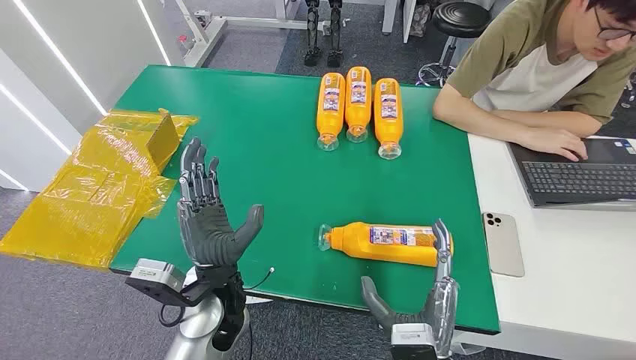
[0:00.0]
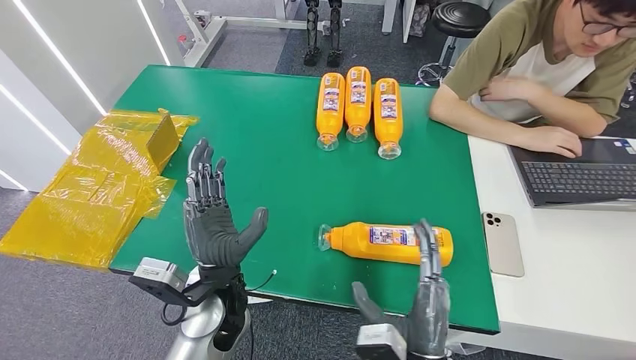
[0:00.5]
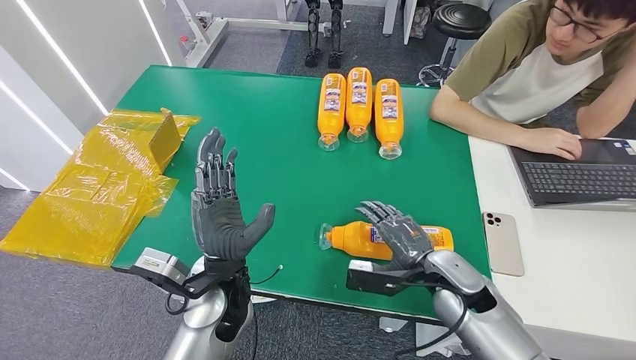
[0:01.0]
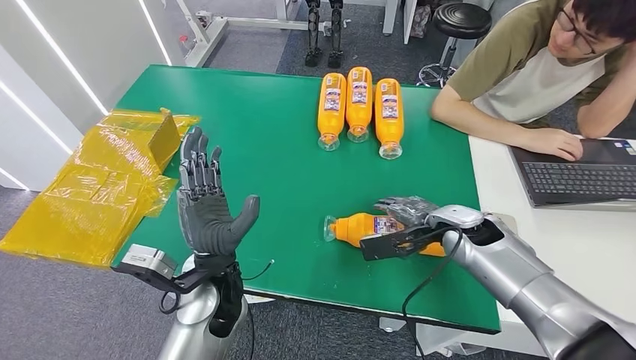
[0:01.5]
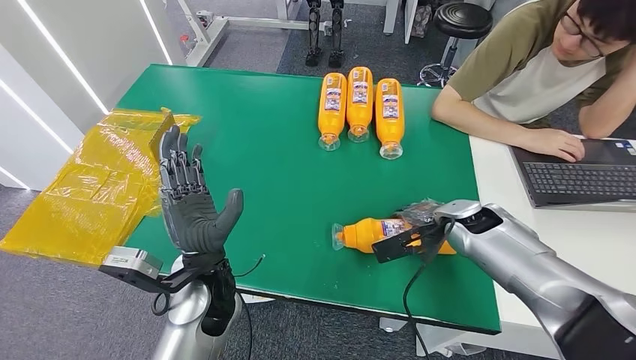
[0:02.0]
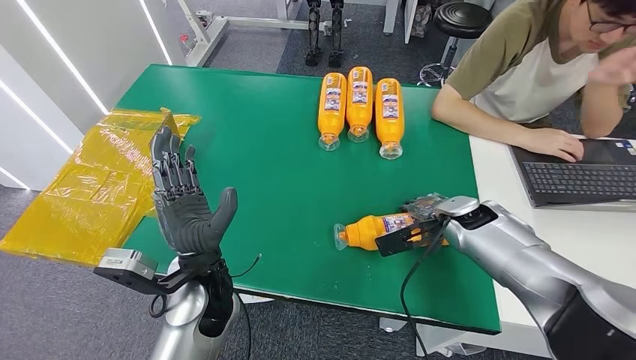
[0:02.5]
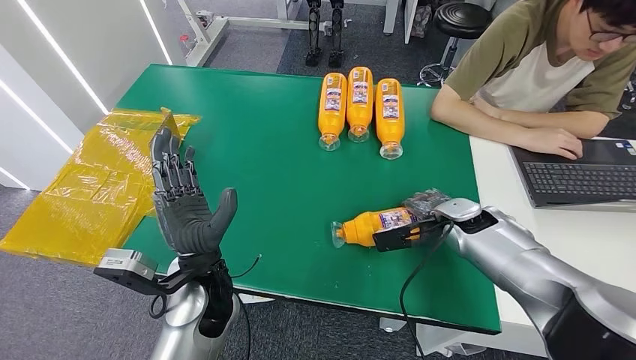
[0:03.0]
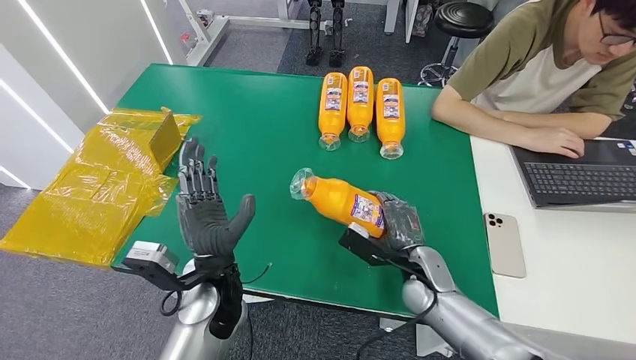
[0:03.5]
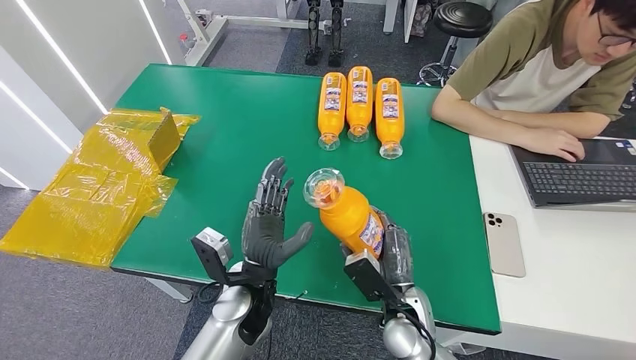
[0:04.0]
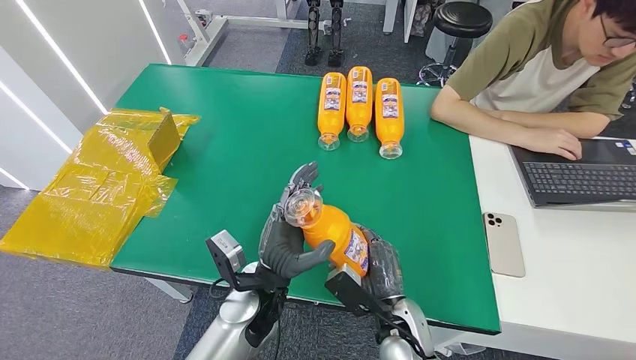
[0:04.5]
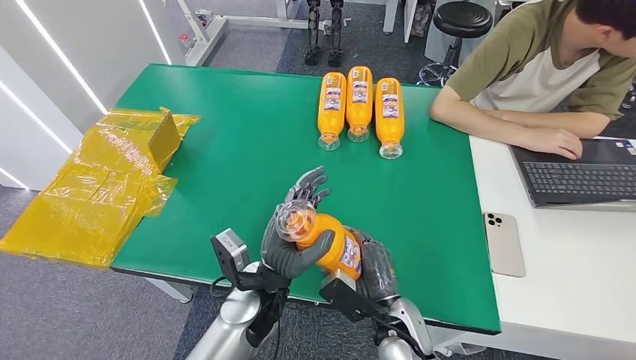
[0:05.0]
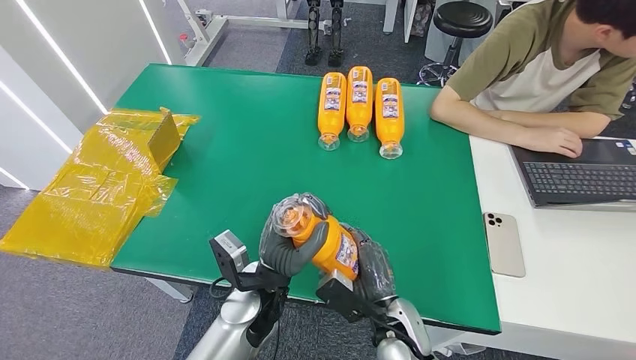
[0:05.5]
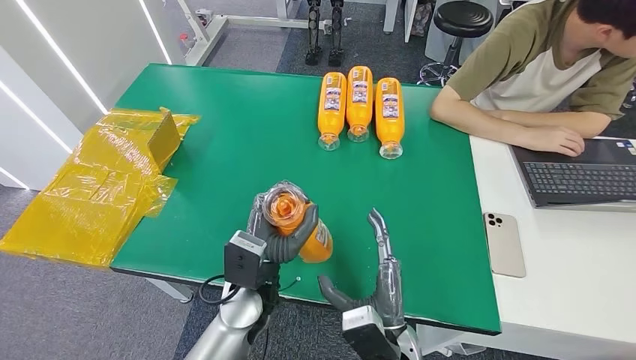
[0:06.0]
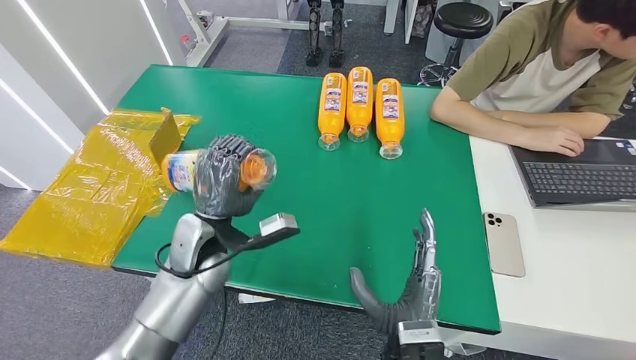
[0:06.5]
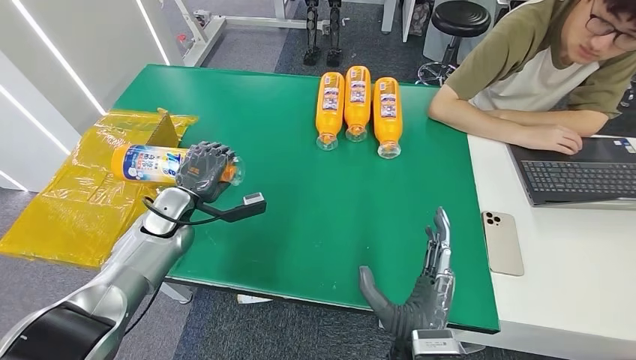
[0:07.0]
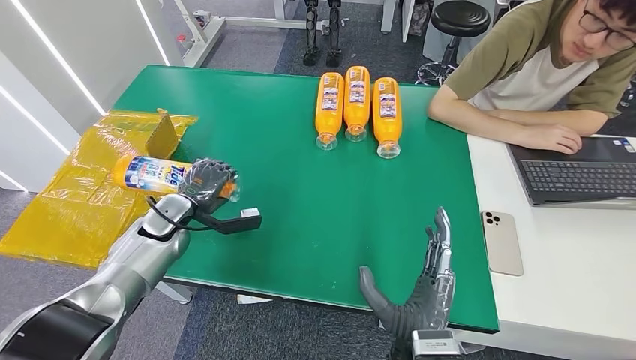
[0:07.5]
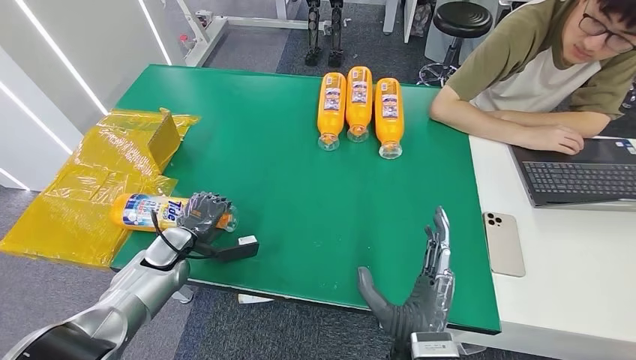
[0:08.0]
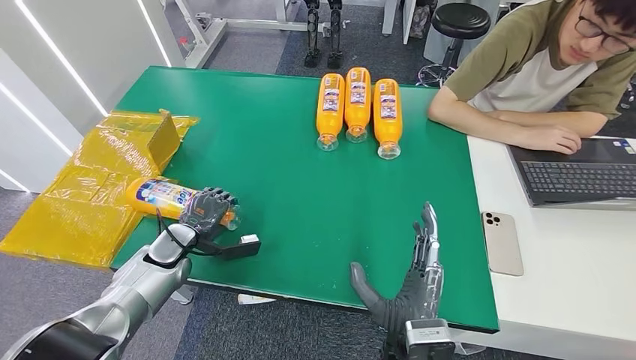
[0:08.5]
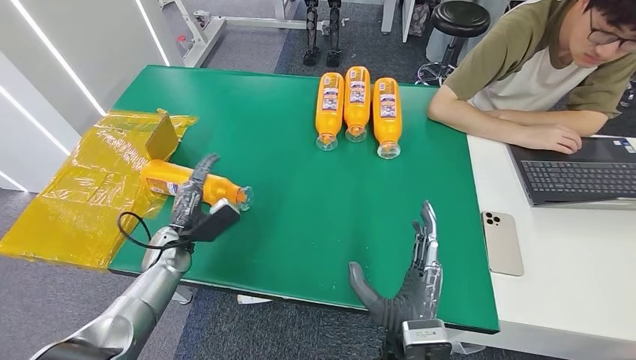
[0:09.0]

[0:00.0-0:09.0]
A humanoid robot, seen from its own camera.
Step, 0:00.0 to 0:03.5: Pick up the bottle from the table.
Step, 0:04.0 to 0:09.0: Turn the bottle to the front side.
0:07.0 to 0:09.0: The left hand heads downward and backward, covering about 10 cm.
